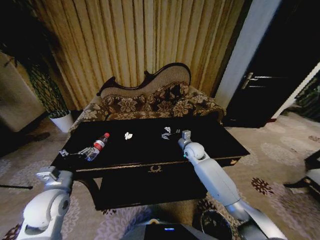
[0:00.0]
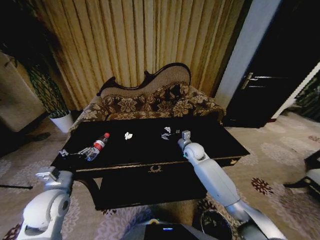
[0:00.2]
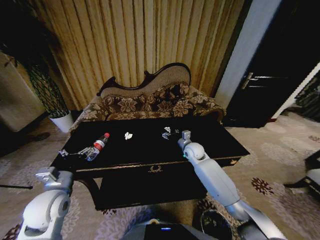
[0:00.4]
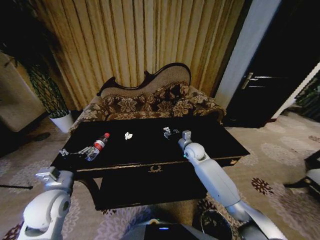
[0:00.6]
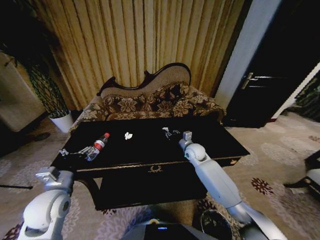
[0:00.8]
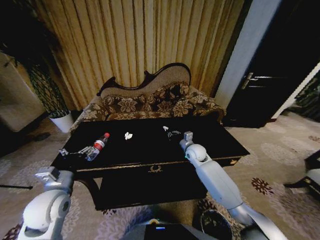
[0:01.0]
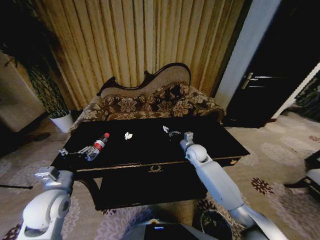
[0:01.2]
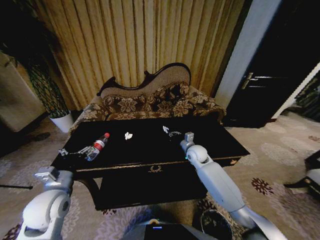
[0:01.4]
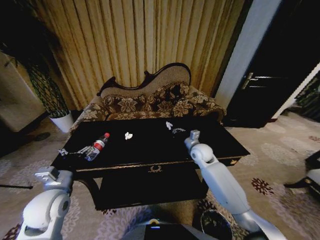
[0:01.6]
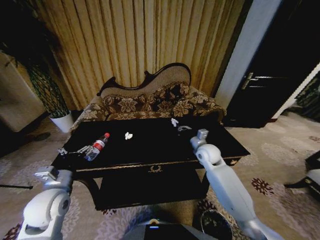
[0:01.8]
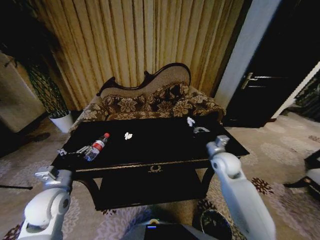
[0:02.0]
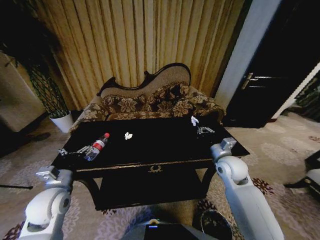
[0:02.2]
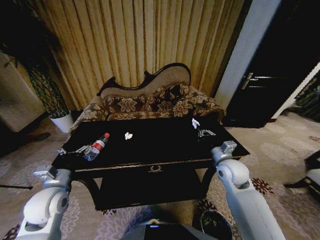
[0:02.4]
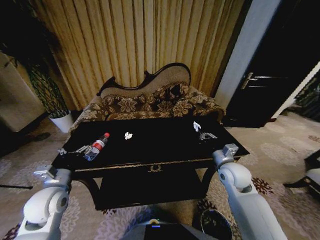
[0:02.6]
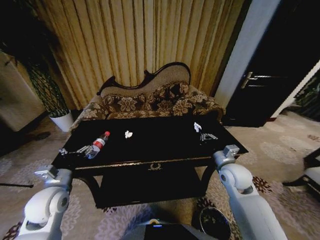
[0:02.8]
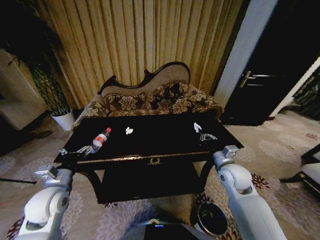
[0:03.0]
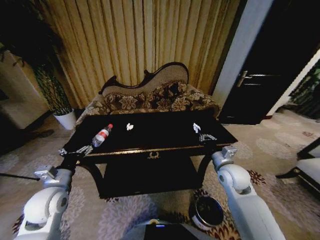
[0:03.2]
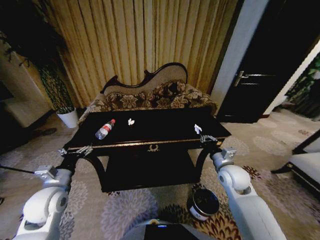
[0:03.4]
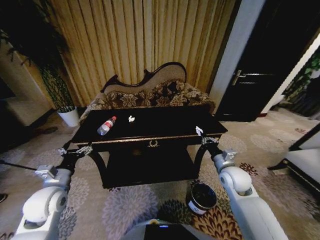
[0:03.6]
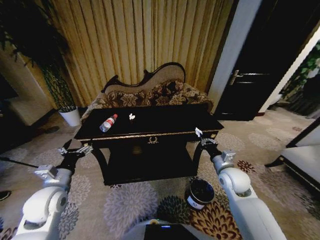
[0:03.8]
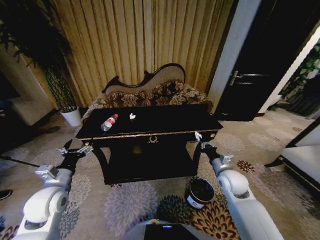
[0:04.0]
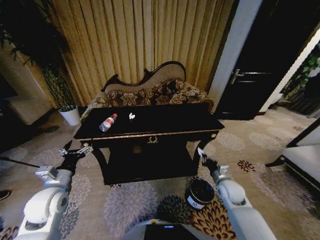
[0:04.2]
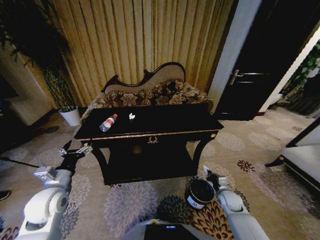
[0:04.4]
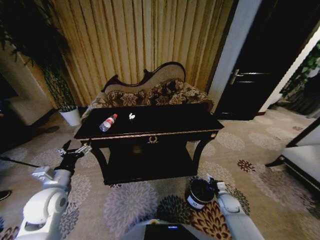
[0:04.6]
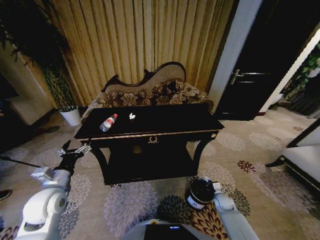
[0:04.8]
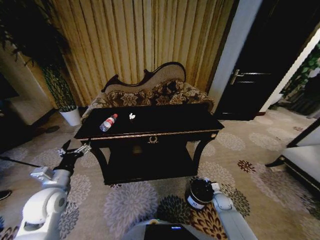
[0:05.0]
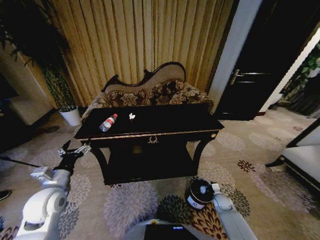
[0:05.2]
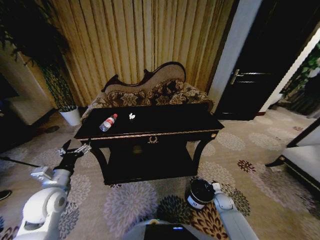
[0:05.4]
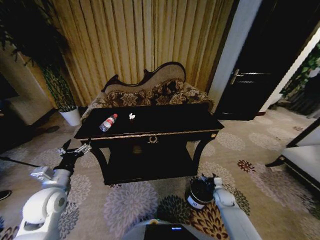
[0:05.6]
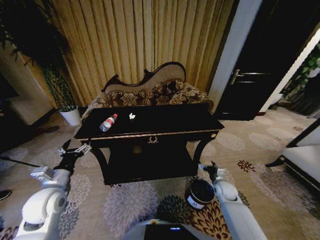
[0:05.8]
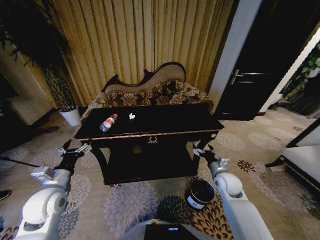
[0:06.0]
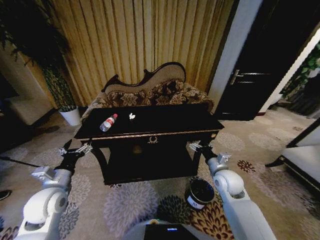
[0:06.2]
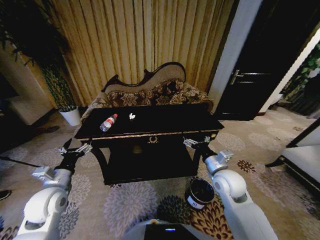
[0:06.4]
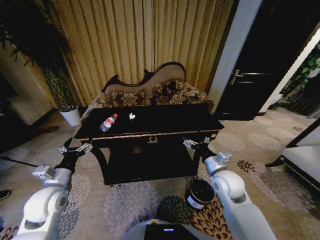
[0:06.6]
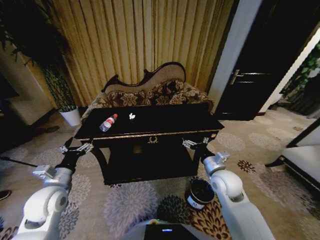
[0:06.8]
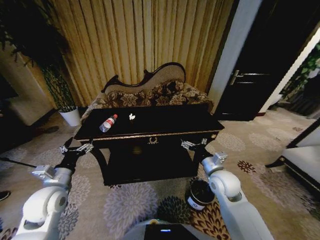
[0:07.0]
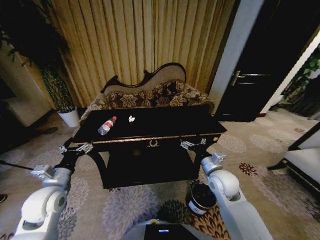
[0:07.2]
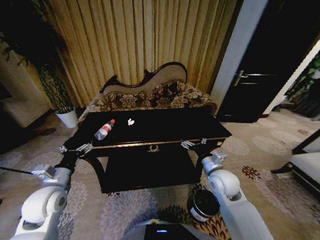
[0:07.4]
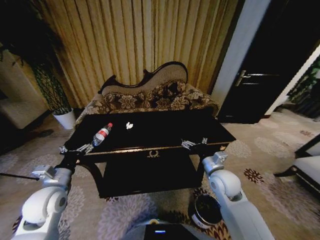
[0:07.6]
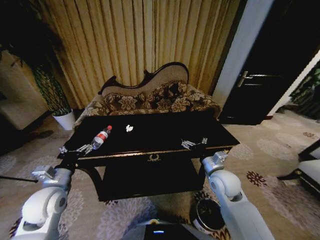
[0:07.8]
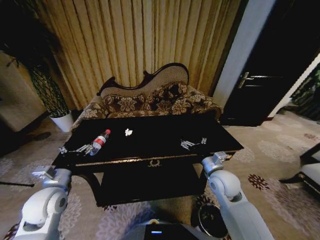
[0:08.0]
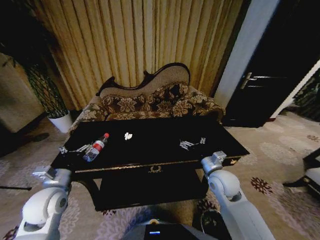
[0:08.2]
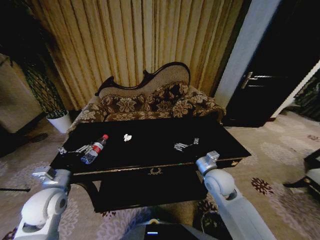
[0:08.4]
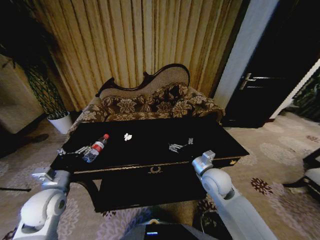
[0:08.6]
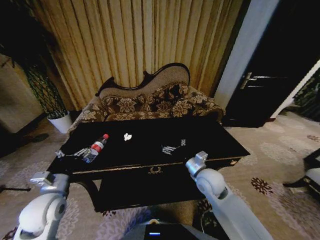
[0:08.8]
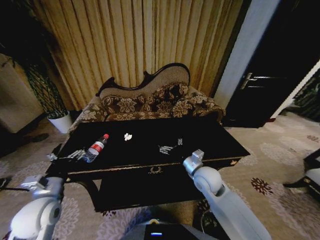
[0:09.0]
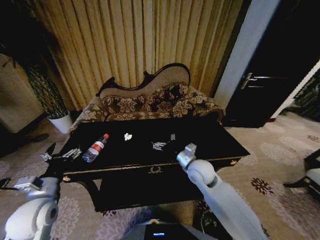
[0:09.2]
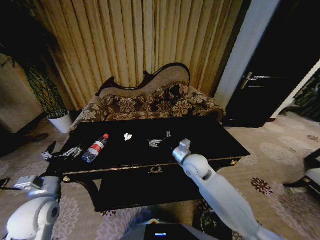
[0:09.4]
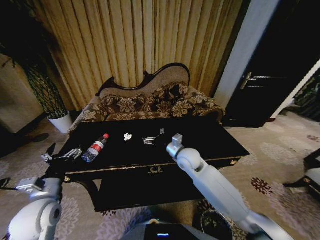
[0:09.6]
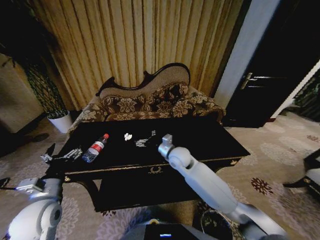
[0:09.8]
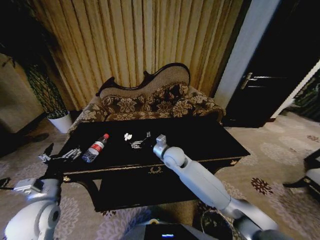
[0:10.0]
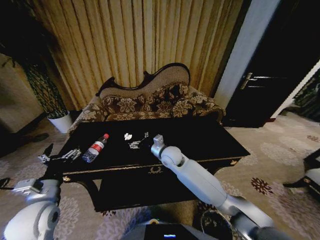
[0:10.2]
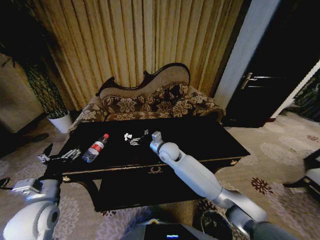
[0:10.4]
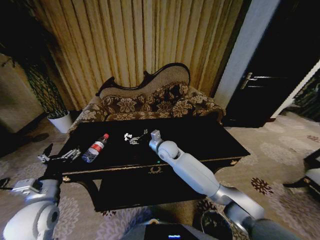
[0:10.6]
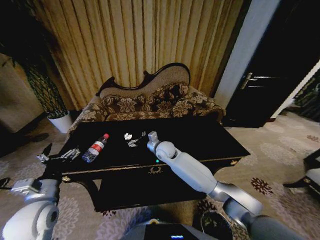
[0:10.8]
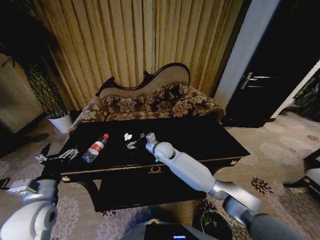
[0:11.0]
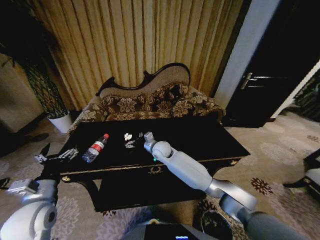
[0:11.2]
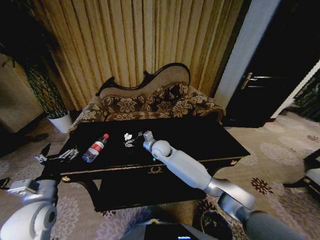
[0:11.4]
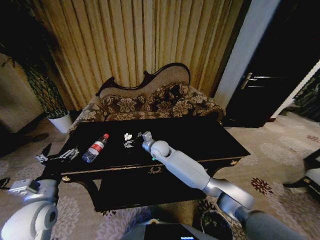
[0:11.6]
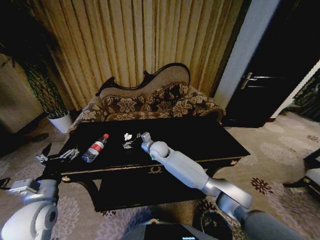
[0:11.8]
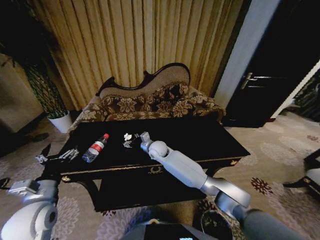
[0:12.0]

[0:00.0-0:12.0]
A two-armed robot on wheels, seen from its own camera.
Task of the whole recording: Move to the front of the table and place the trash on the table into the trash bin.
0:00.0 to 0:01.6: The right gripper closes its fingers.
0:01.6 to 0:03.0: The right gripper moves backward and to the right, some 15 cm.
0:03.0 to 0:04.4: The right gripper heads downward, covering some 20 cm.
0:04.4 to 0:06.0: The right gripper travels upward by some 10 cm, and opens its fingers.
0:06.0 to 0:07.6: The right gripper travels upward and to the left by roughly 10 cm.
0:07.6 to 0:09.0: The right gripper shifts roughly 5 cm to the left.
0:09.0 to 0:10.4: The right gripper travels forward and to the left by some 20 cm.
0:10.4 to 0:12.0: The right gripper is displaced to the left by approximately 5 cm.

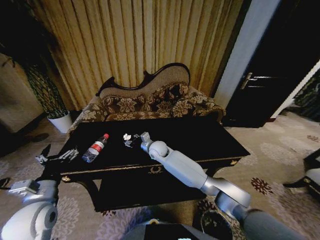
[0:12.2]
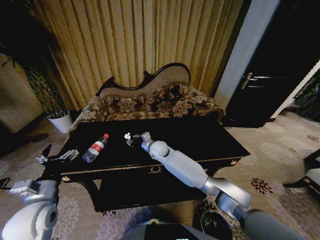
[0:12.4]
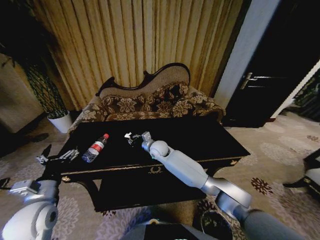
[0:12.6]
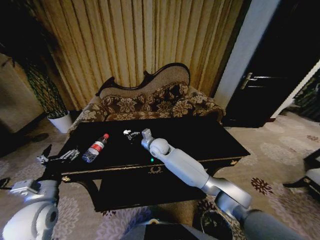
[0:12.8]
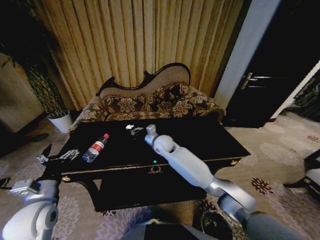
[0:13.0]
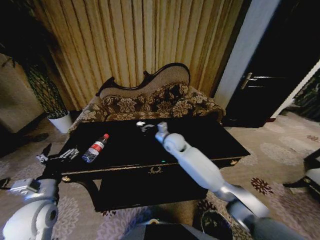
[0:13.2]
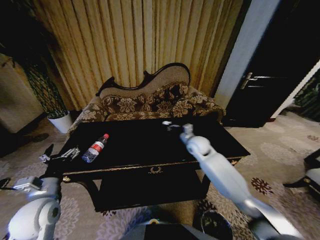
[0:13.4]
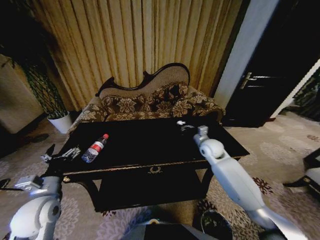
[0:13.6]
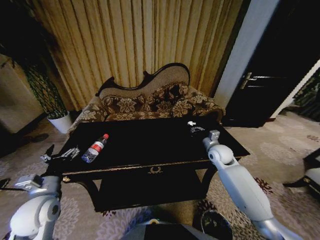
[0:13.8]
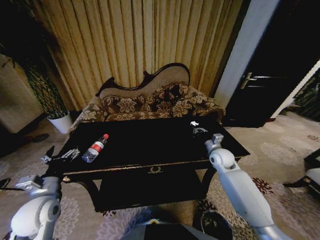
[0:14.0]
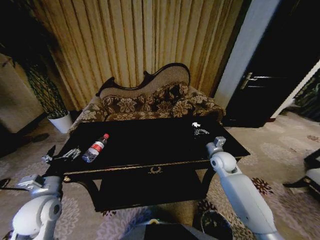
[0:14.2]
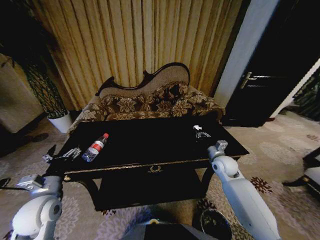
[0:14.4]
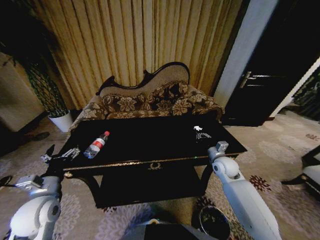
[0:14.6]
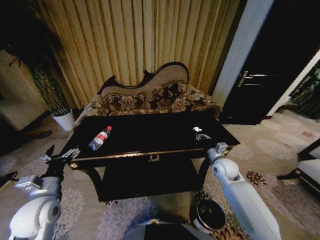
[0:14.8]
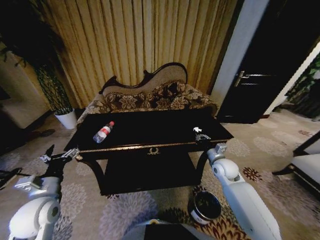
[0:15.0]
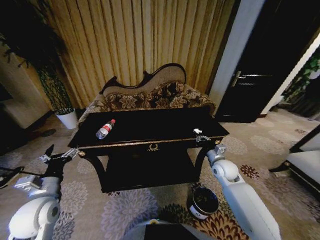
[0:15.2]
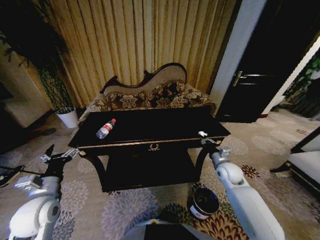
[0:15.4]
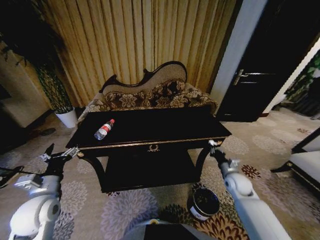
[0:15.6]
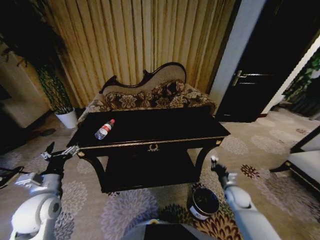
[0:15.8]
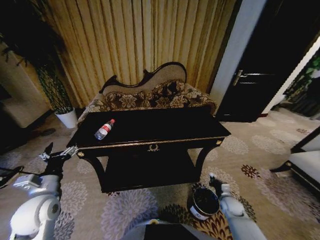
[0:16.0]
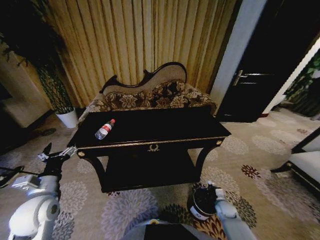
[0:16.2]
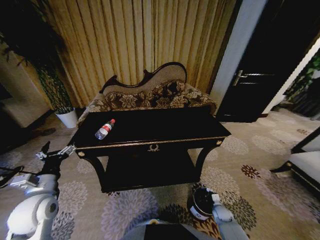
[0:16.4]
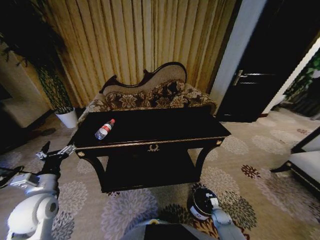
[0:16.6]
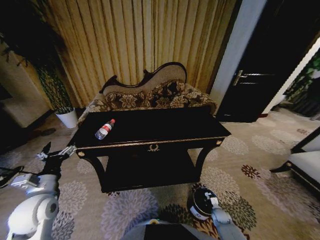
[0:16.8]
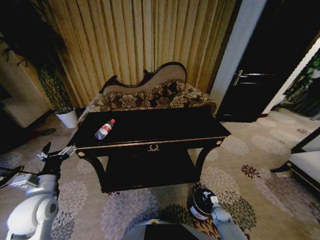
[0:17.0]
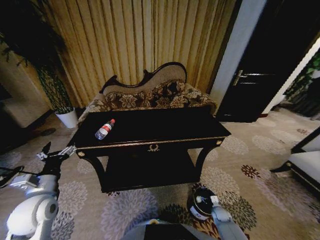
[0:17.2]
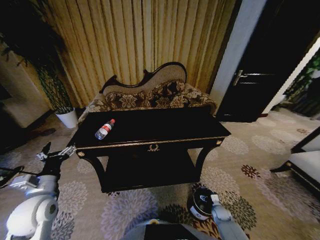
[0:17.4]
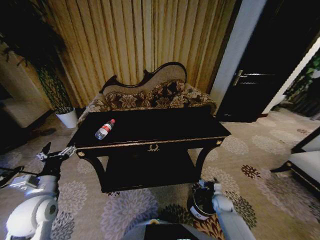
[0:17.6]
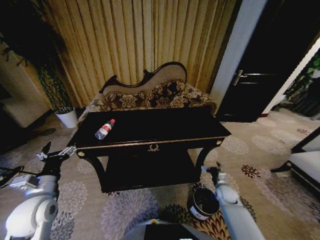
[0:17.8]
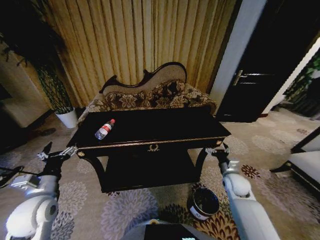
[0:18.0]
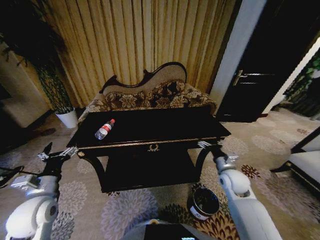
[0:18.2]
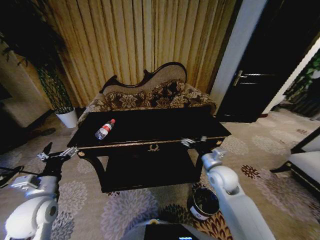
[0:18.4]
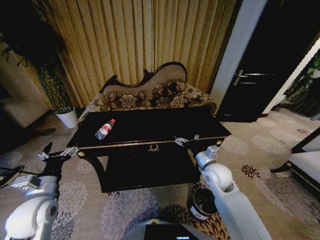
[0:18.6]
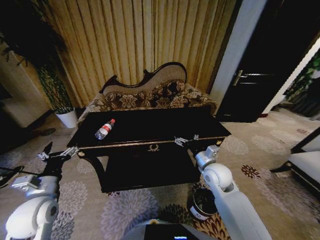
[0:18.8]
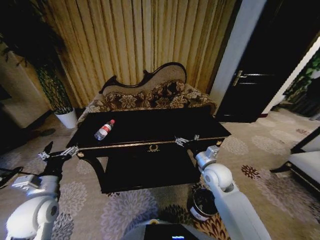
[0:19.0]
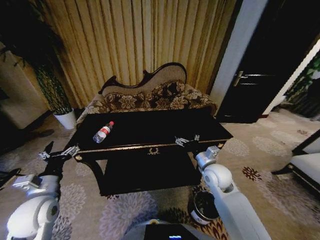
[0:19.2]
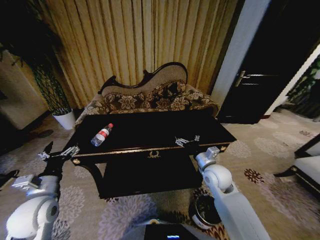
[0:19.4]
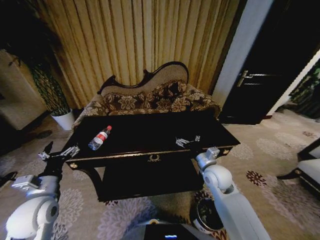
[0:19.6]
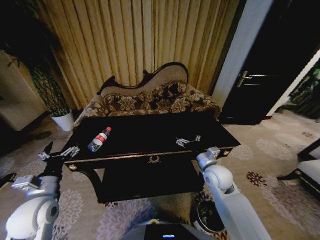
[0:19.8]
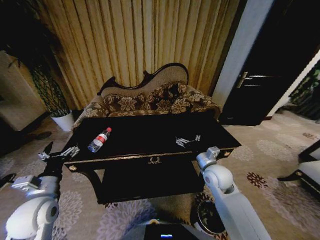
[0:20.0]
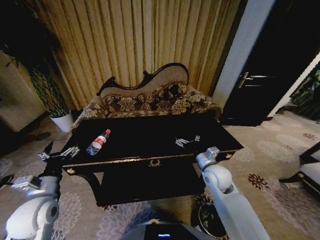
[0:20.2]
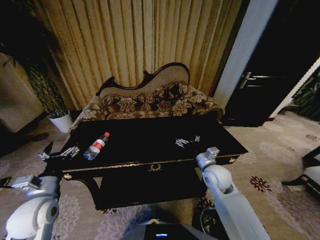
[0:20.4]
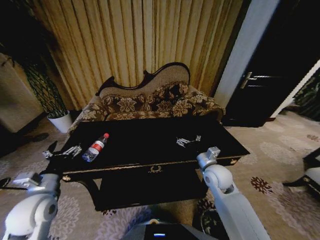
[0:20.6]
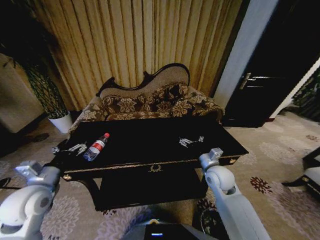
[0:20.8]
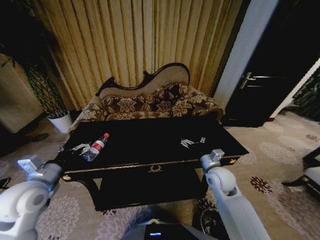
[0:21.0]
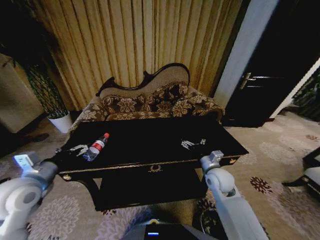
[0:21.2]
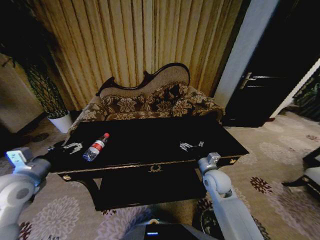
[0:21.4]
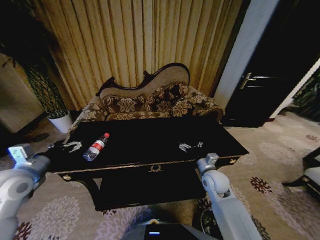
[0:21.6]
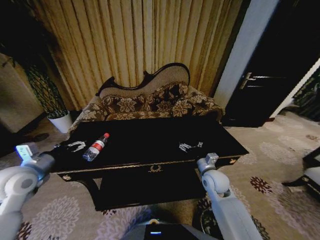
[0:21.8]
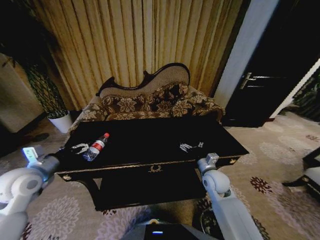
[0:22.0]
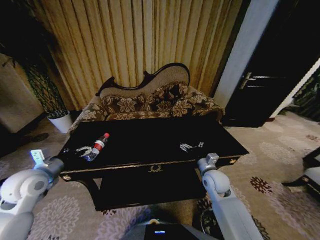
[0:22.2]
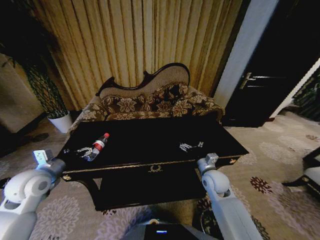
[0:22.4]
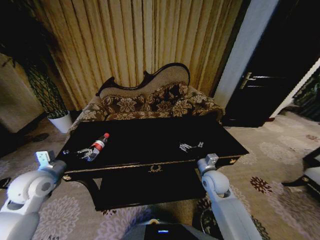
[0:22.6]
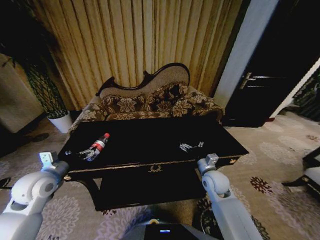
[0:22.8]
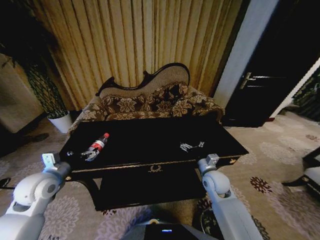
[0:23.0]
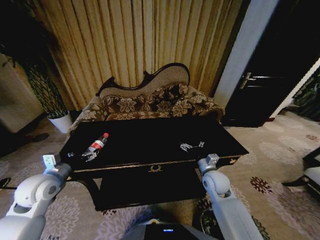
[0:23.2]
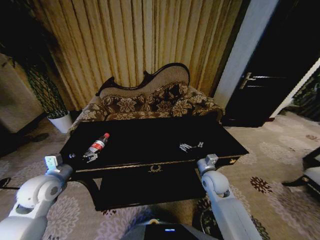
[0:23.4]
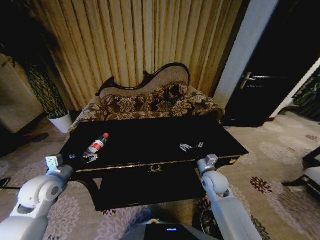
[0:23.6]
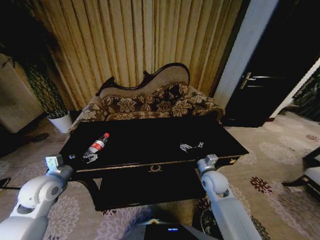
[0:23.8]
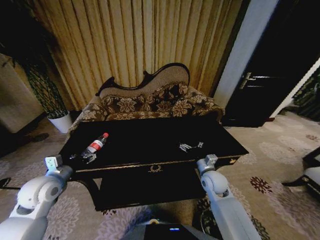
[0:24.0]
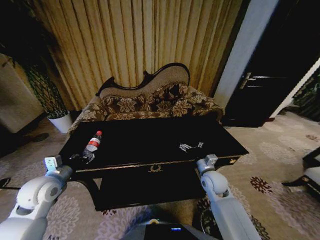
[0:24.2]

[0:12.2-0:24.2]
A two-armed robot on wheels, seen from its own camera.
Task of the whole recording: Move to the front of the table and place the trash on the table into the trash bin.
0:12.2 to 0:13.8: The right gripper heads to the right, covering some 30 cm, and closes its fingers.
0:13.8 to 0:15.2: The right gripper shifts about 5 cm backward.
0:15.2 to 0:16.6: The right gripper goes approximately 35 cm downward and backward.
0:16.6 to 0:18.2: The right gripper travels upward by about 30 cm, and opens up.
0:18.2 to 0:19.8: The right gripper goes some 10 cm to the left.
0:19.8 to 0:21.2: The left gripper is displaced upward by approximately 5 cm.
0:21.2 to 0:22.6: The left gripper ends up about 5 cm from where it was.
0:22.6 to 0:24.2: The left gripper closes up.
